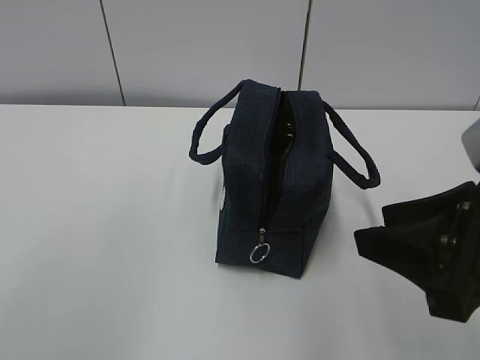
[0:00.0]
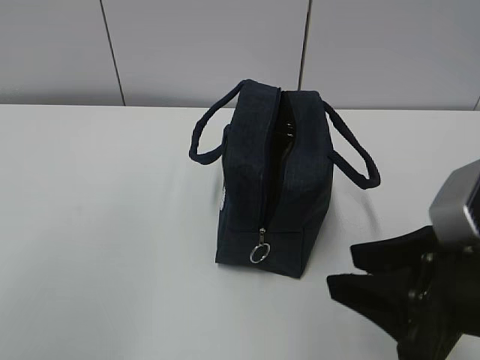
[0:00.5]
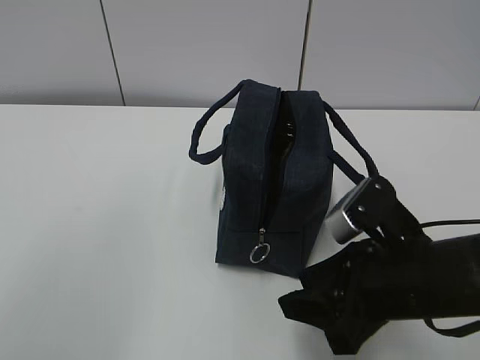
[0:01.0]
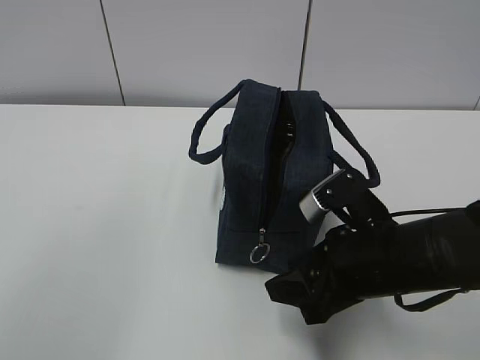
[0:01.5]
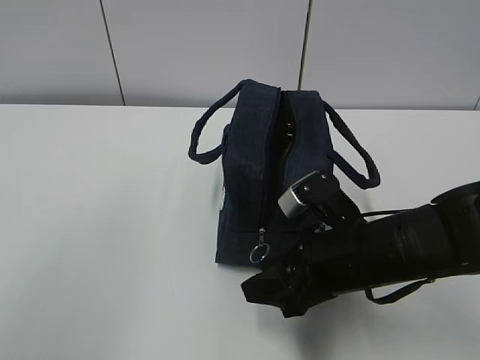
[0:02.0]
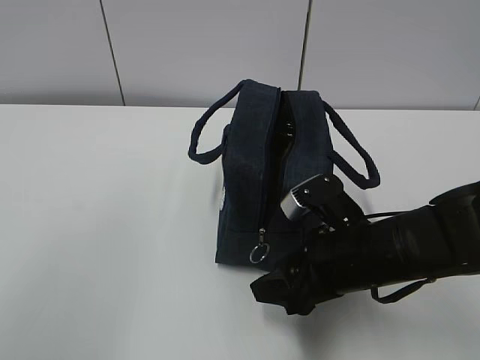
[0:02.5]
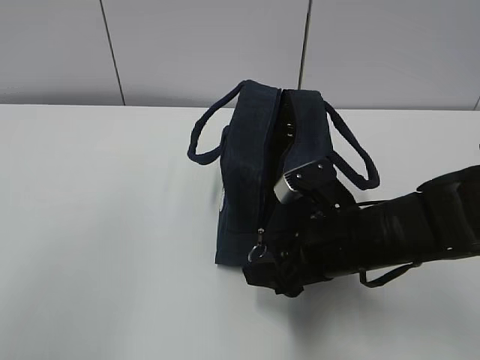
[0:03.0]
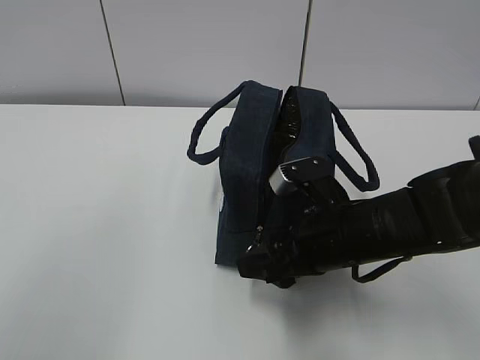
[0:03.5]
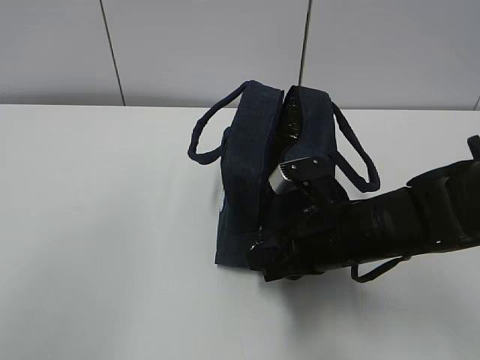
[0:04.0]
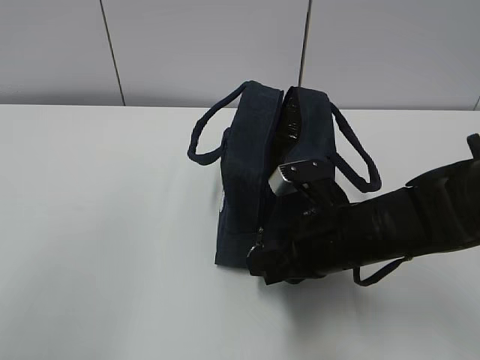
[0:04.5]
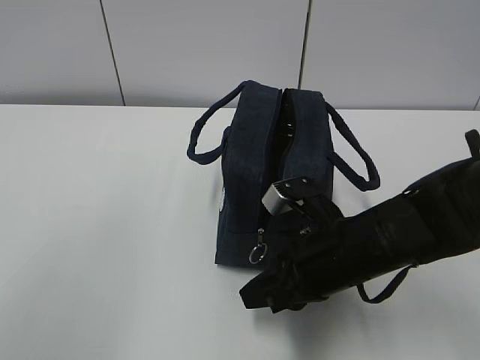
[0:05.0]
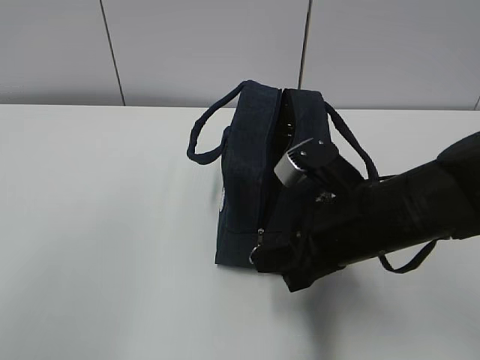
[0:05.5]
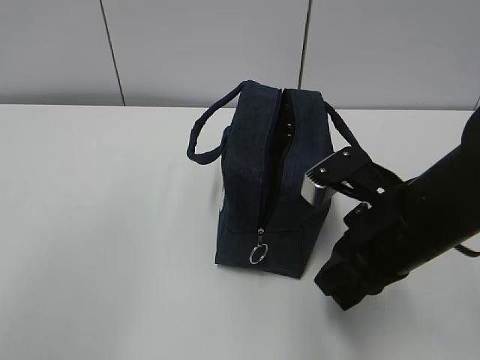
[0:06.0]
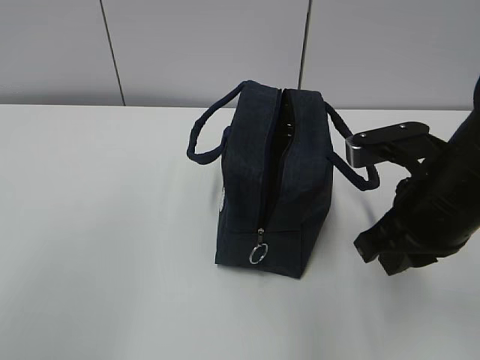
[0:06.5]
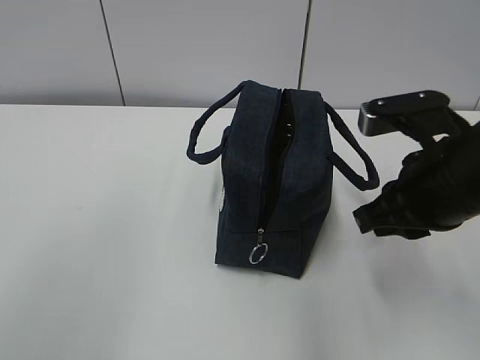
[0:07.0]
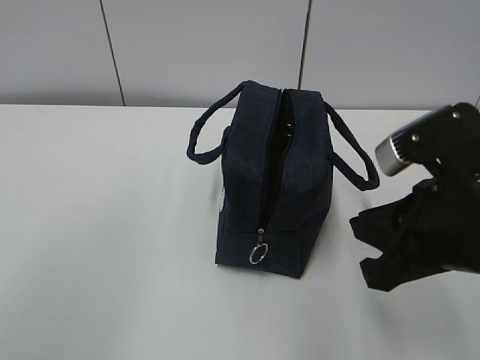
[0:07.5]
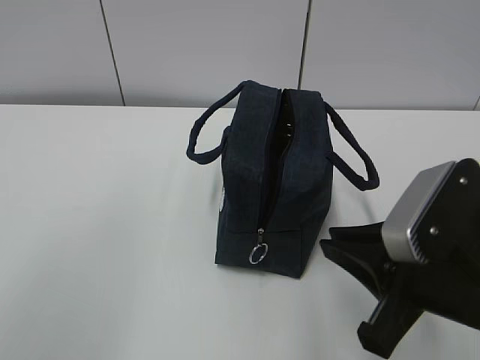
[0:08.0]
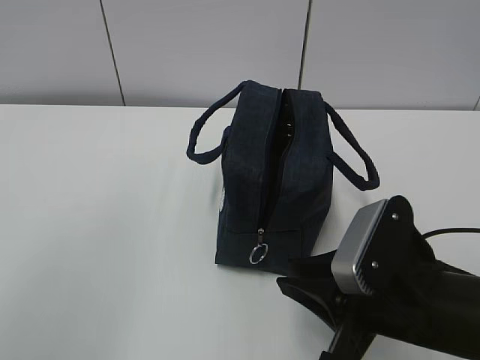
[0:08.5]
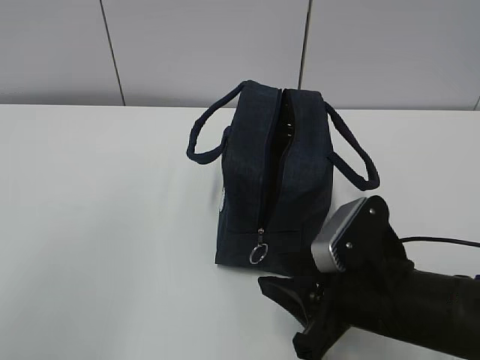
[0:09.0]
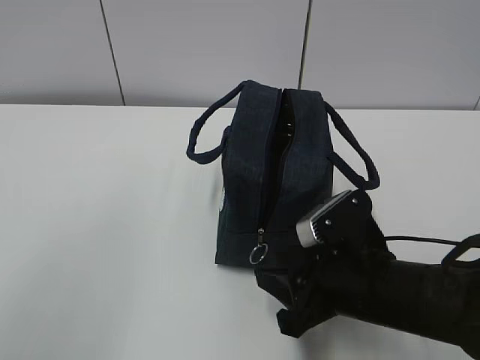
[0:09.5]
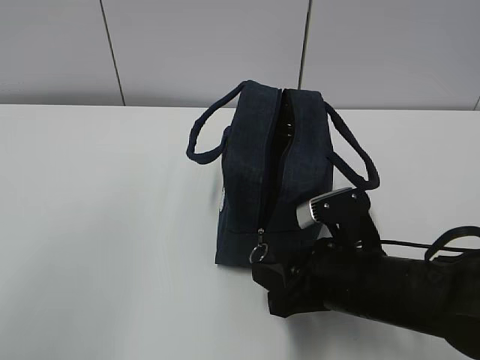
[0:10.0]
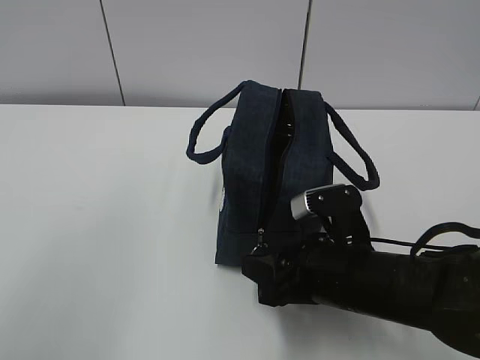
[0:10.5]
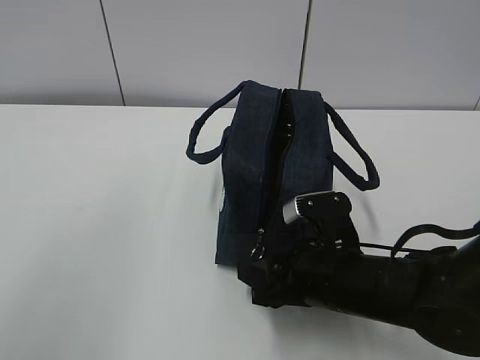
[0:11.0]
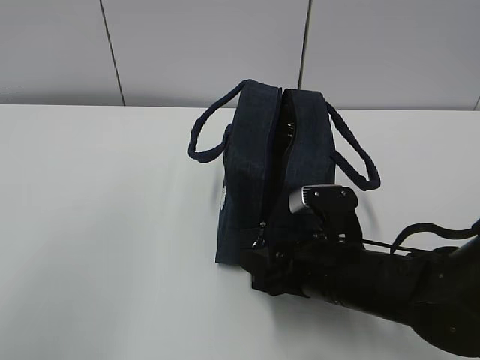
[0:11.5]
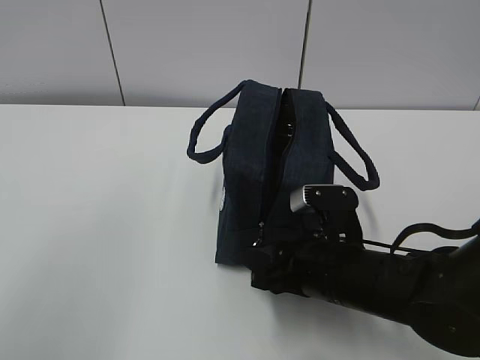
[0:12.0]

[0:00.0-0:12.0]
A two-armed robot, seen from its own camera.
0:00.0 to 0:02.0: The right gripper shifts roughly 15 cm downward, forward and to the left.
0:02.0 to 0:04.0: The right gripper closes its fingers.
0:04.0 to 0:06.0: The right gripper goes some 5 cm upward.
0:06.0 to 0:08.0: The right gripper shifts approximately 5 cm backward.
0:08.0 to 0:10.0: The right gripper shifts about 10 cm downward and forward, and opens up.
0:10.0 to 0:12.0: The grippers make only small movements.

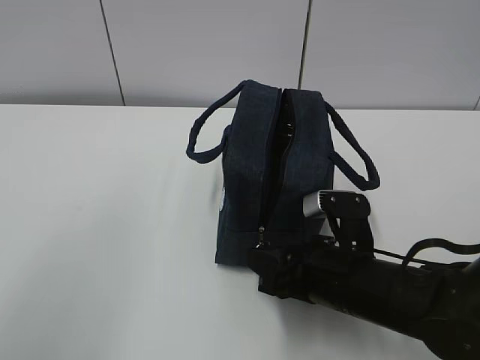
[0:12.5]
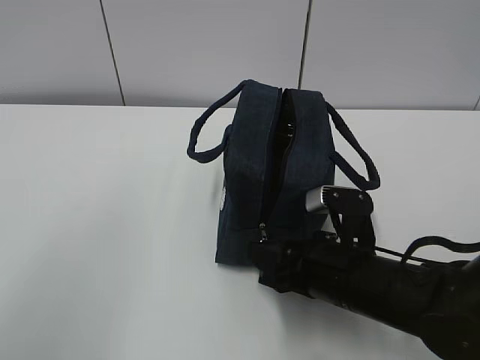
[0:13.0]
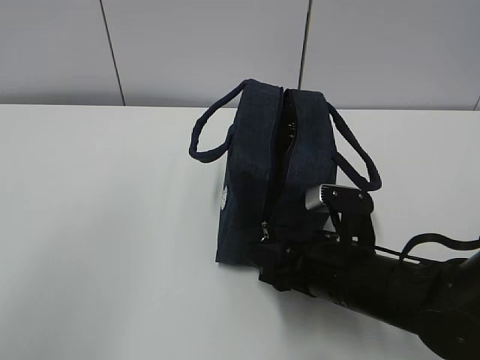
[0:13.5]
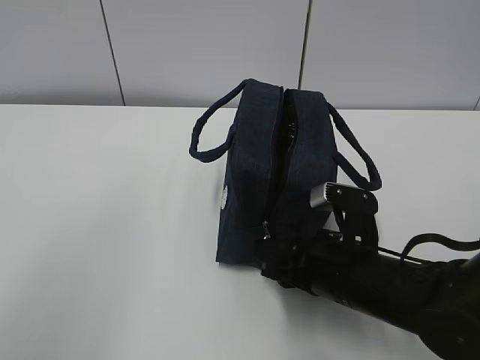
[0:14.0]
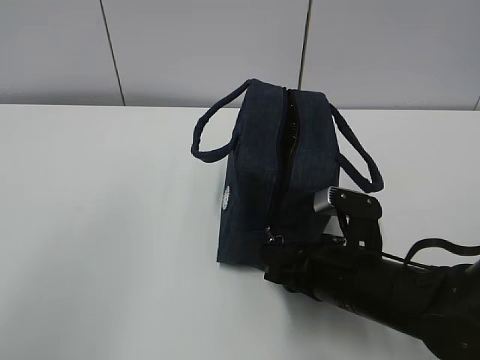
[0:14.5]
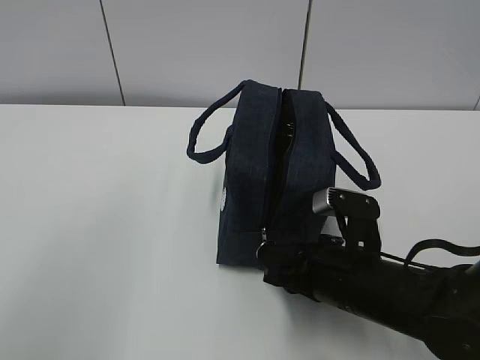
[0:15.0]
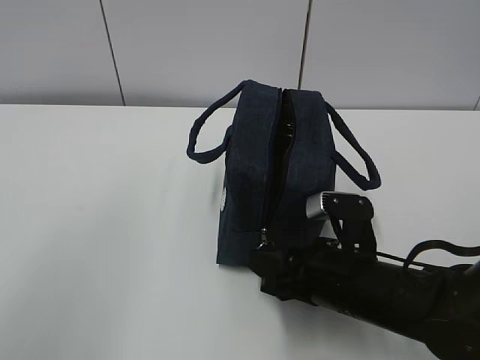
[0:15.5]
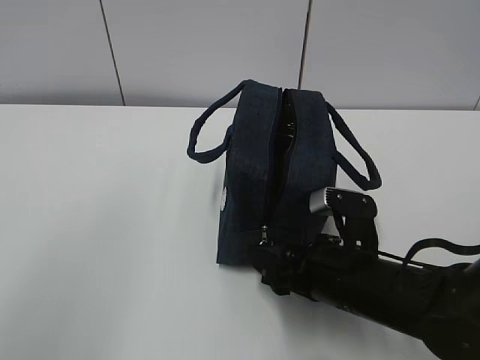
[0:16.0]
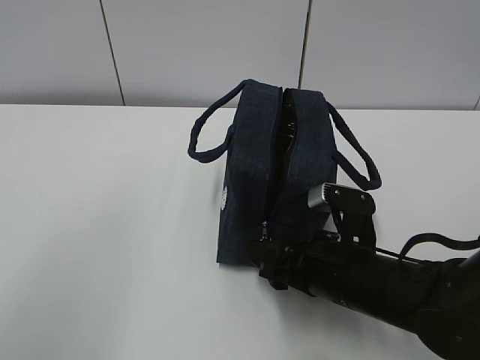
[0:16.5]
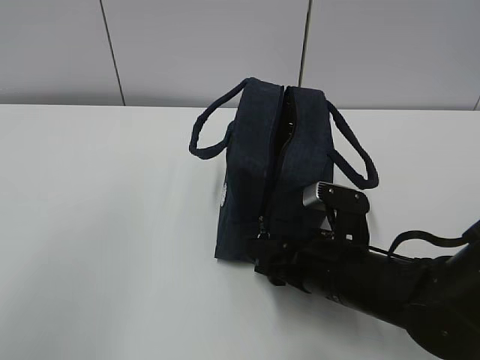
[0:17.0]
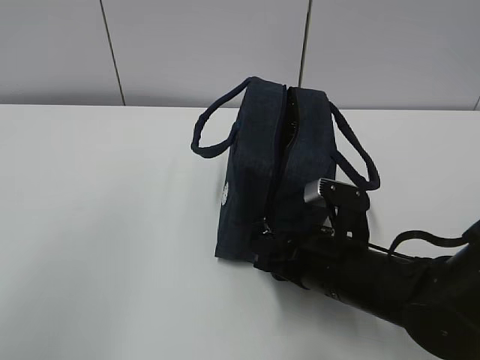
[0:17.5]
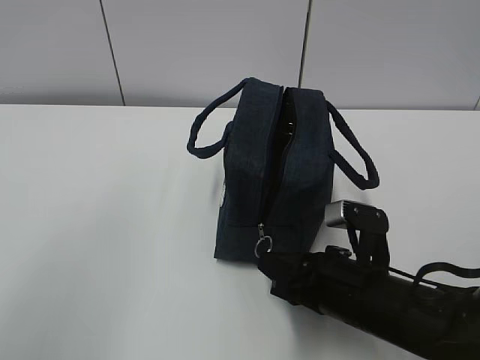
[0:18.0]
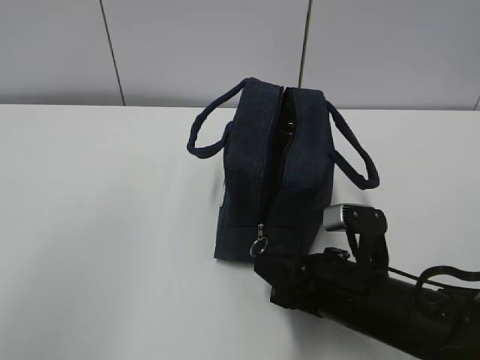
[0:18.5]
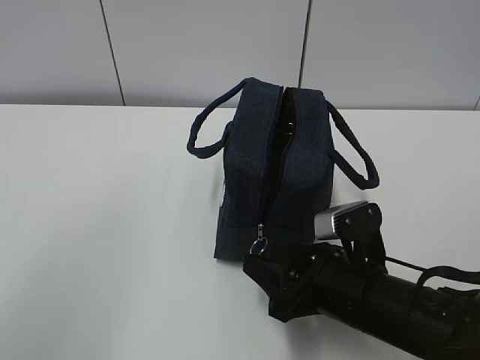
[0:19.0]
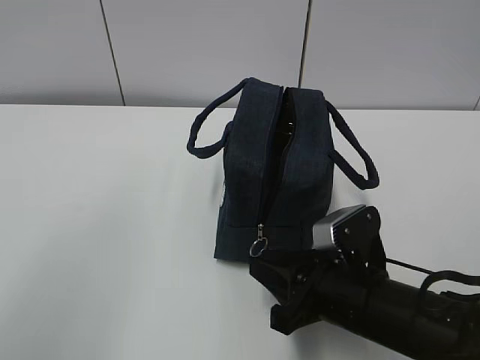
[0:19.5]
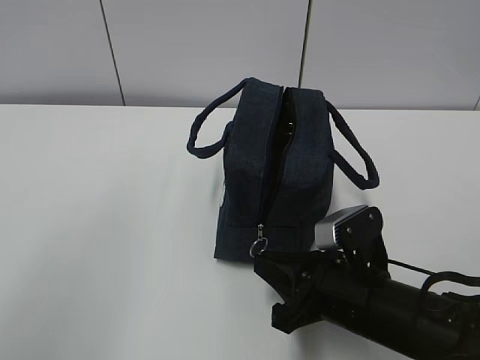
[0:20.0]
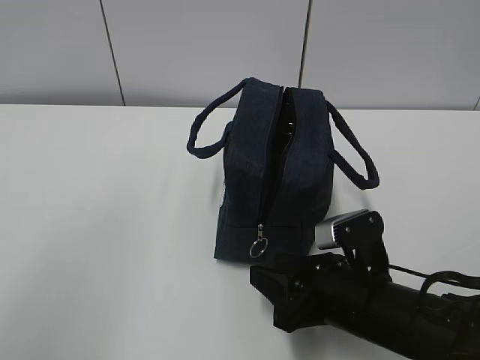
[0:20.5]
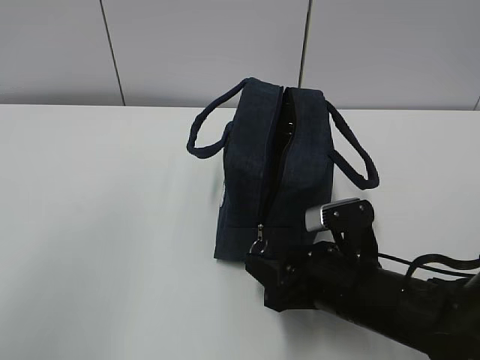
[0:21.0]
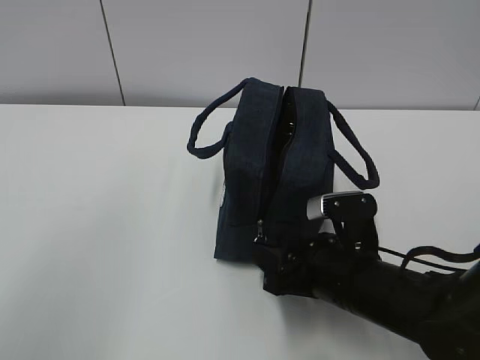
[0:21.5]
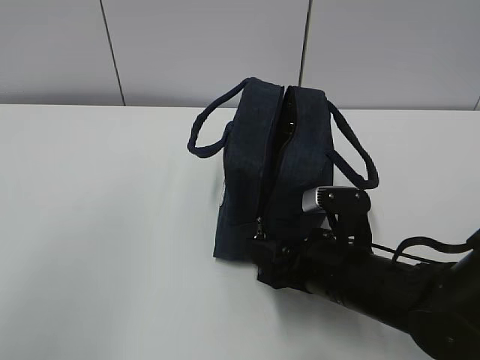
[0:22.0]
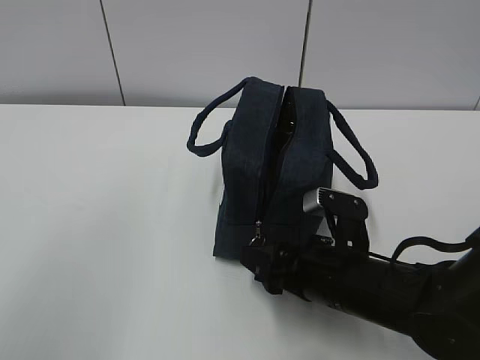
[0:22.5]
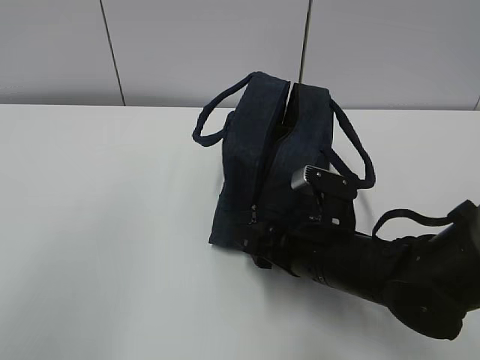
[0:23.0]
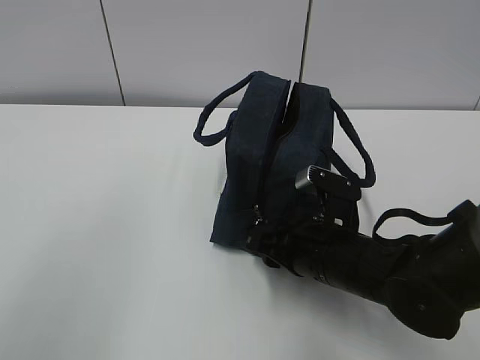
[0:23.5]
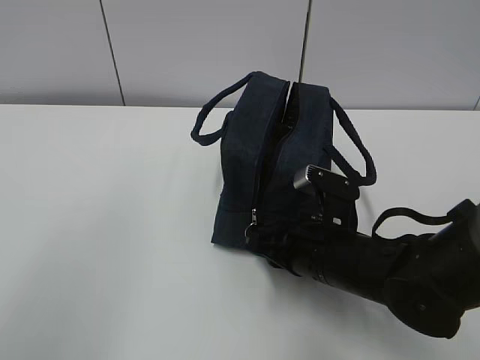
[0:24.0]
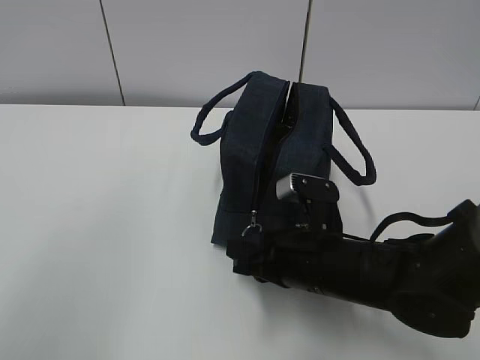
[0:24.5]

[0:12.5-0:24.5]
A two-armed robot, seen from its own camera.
0:12.5 to 0:14.5: The grippers make only small movements.
0:14.5 to 0:16.5: The right gripper opens up.
0:16.5 to 0:18.5: The right gripper closes its fingers.
0:18.5 to 0:20.5: The right gripper opens its fingers.
0:20.5 to 0:22.5: The grippers make only small movements.
0:22.5 to 0:24.5: The right gripper closes its fingers.

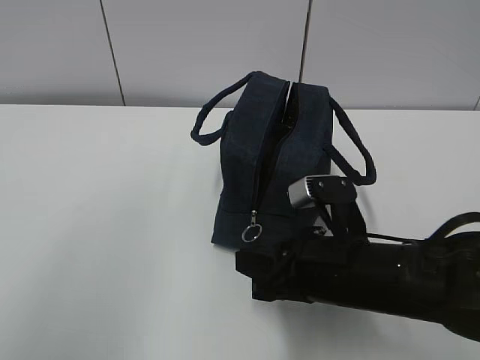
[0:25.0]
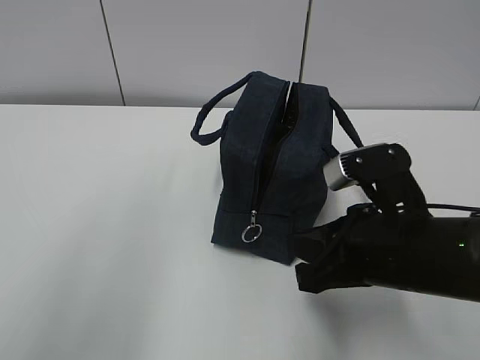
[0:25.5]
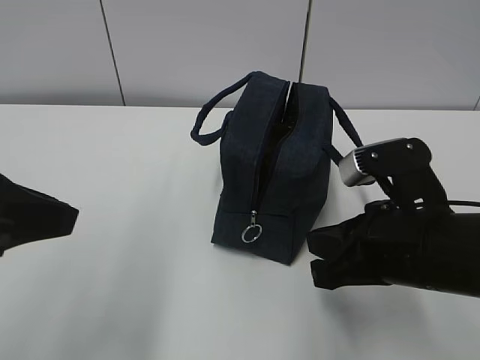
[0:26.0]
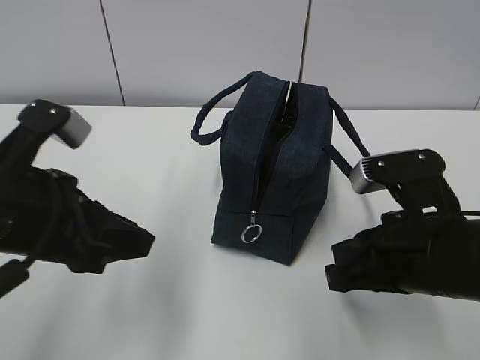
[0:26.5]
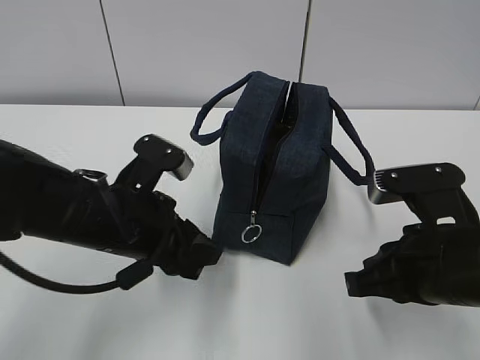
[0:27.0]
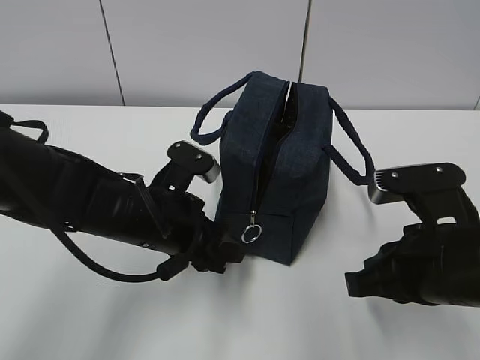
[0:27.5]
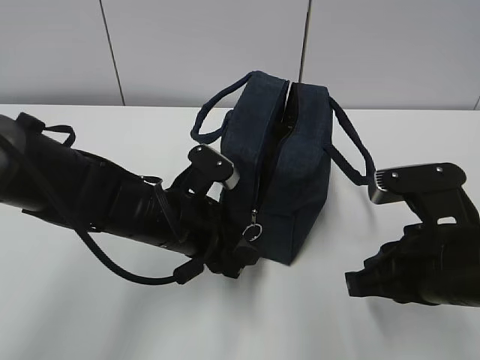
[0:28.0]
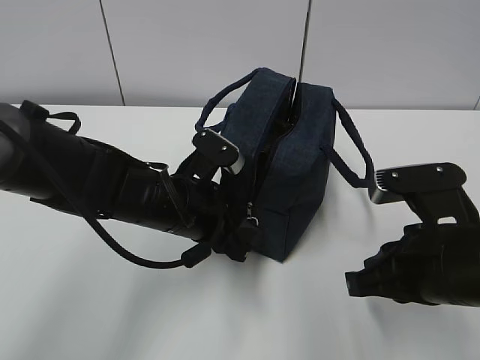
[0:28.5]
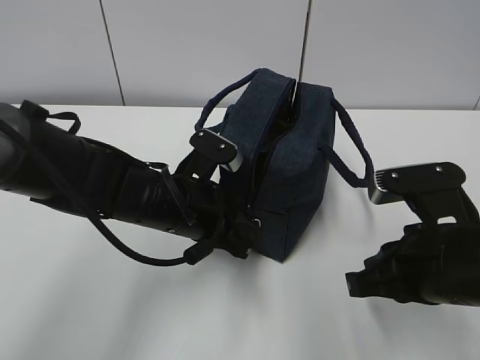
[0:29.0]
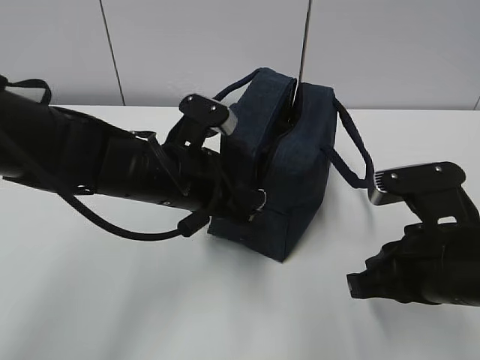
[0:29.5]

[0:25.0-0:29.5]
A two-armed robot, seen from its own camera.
Step, 0:25.0 to 0:29.0: Grab the lunch bag with your left hand.
0:25.0 to 0:27.0: The right gripper heads to the right, covering roughly 5 cm; the left gripper goes approximately 30 cm downward, to the right and forward.
0:27.0 to 0:29.5: The left gripper moves some 5 cm, and closes up.
